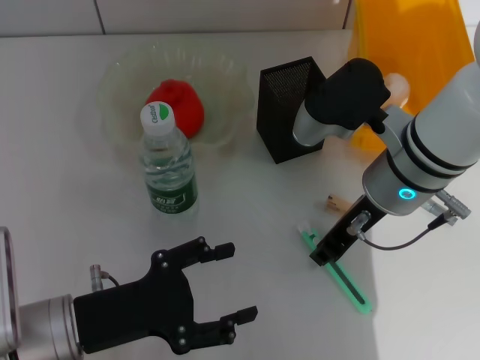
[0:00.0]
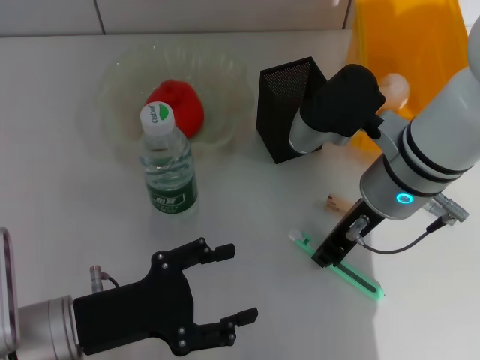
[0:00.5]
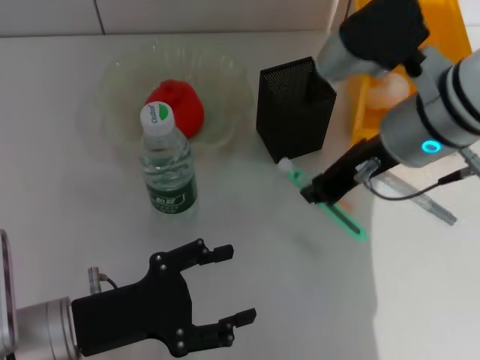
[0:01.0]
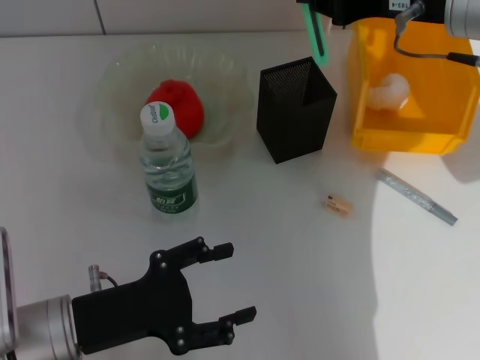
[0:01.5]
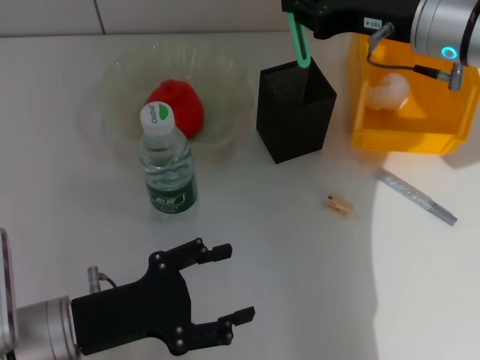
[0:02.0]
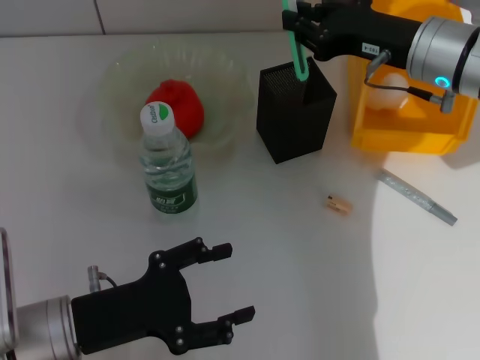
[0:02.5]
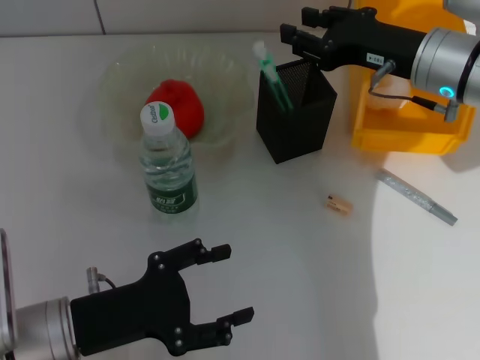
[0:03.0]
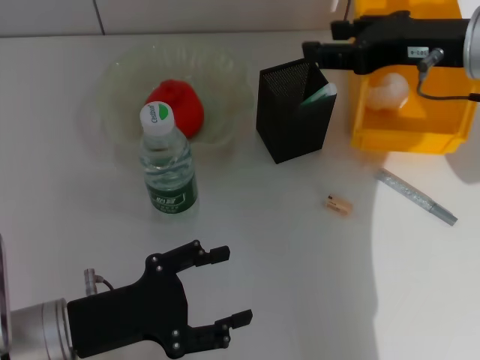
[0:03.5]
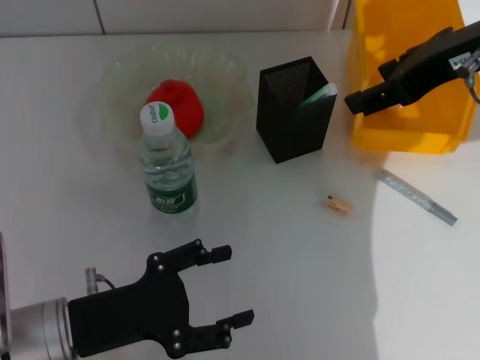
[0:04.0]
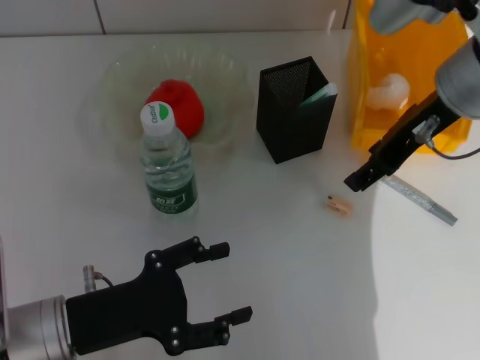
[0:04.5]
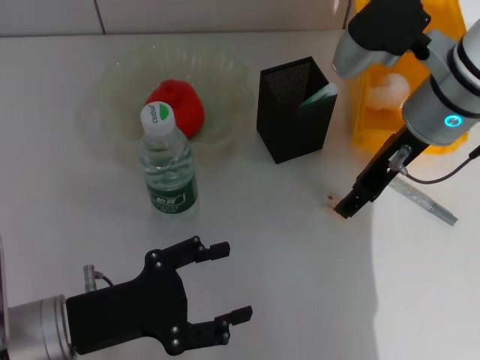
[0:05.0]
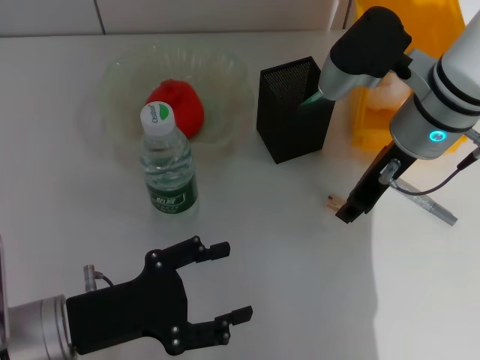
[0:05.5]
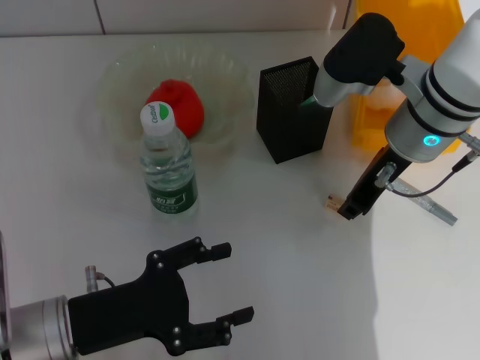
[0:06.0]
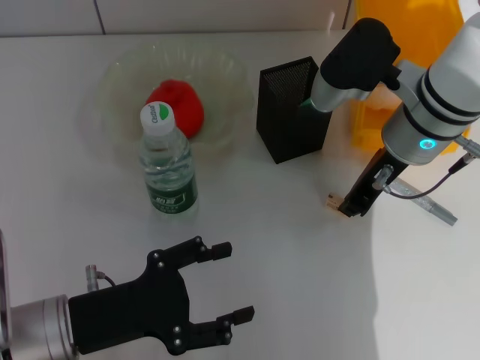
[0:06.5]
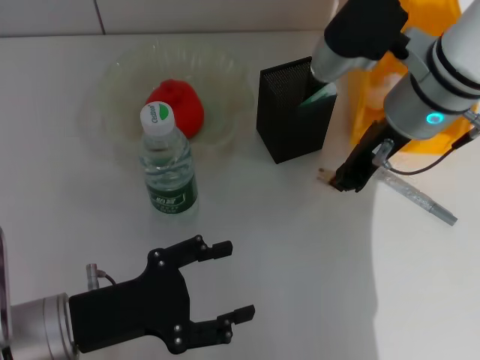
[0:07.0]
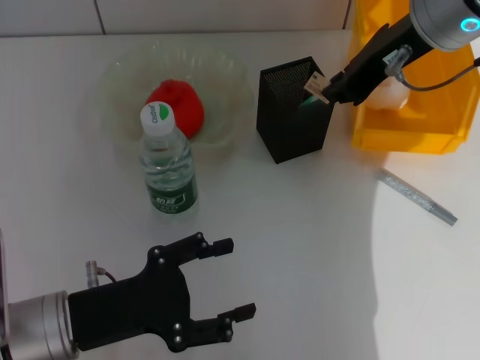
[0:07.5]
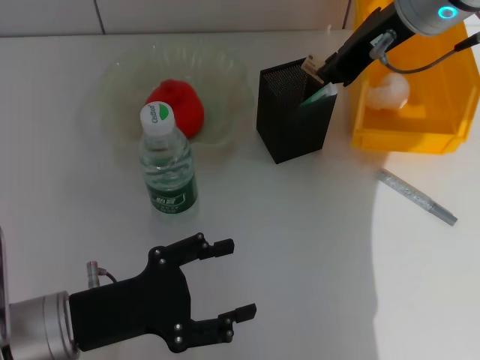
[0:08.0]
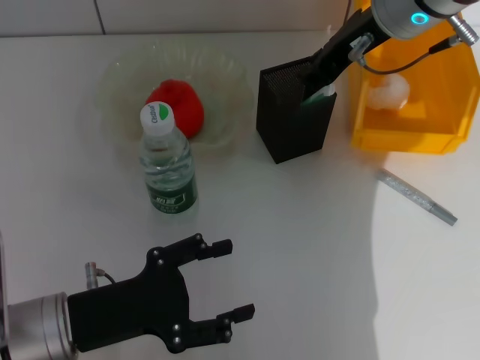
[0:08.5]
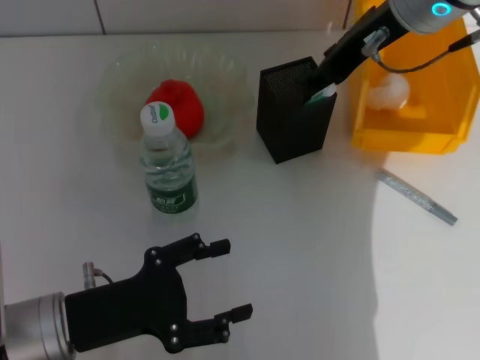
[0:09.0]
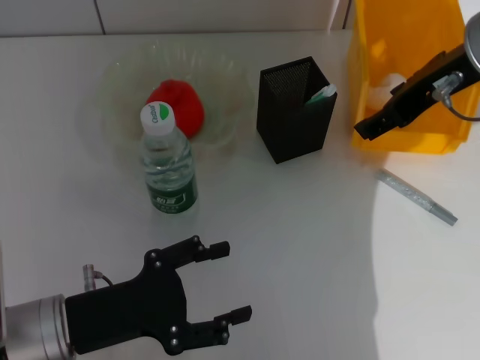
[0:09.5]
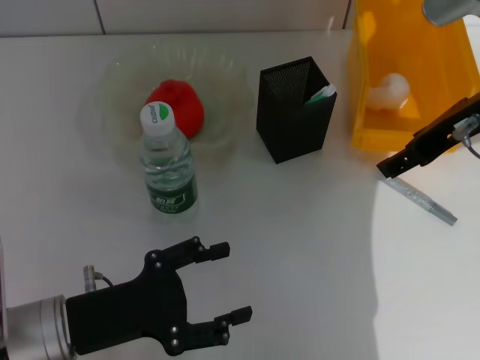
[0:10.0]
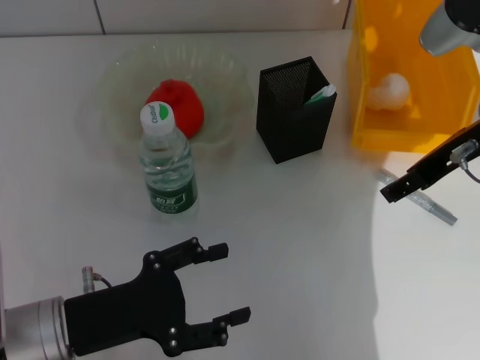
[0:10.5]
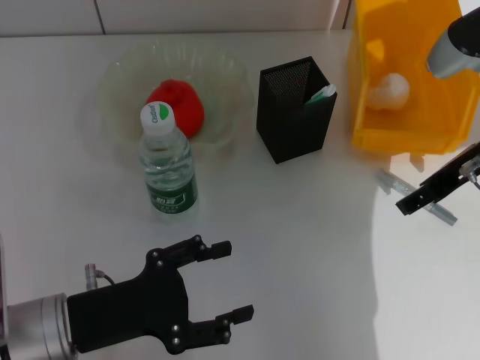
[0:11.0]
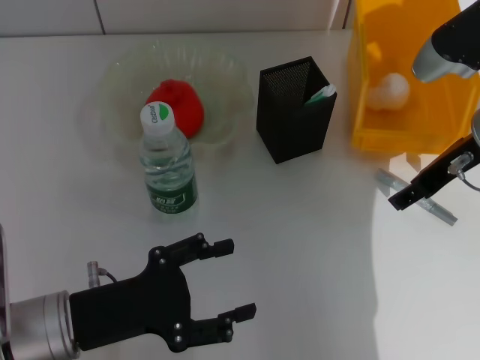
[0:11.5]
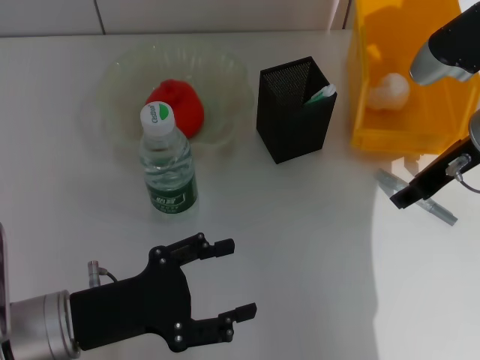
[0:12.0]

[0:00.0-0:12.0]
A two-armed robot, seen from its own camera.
Step, 0:00.5 to 0:03.0: Place the blue utility knife into the pen holder with the right hand.
Step, 0:03.5 to 0:06.0: Grab the eraser with the right hand.
Step, 0:06.5 to 0:08.5: Put the eraser into the pen holder with the right hand.
0:00.0 to 0:02.0: The right gripper moves forward, to the right and upward, roughly 10 cm.
0:02.0 to 0:04.0: The right gripper is displaced upward and backward by roughly 10 cm, and opens its fingers.
0:04.0 to 0:06.0: The right gripper goes approximately 15 cm downward and to the left, and closes up.
0:06.0 to 0:08.0: The right gripper is displaced upward by roughly 10 cm.
0:08.0 to 0:10.0: The right gripper moves to the right and backward, about 10 cm, and opens up.
0:10.0 to 0:12.0: The right gripper heads downward, covering approximately 5 cm.

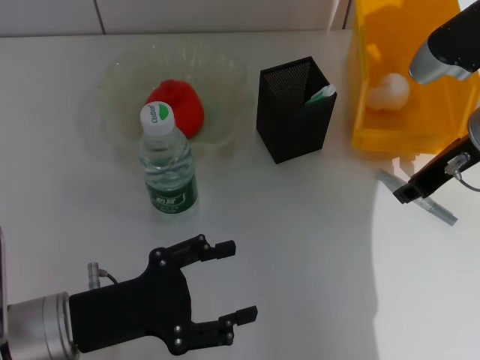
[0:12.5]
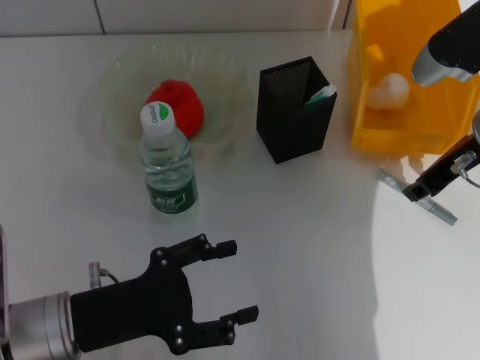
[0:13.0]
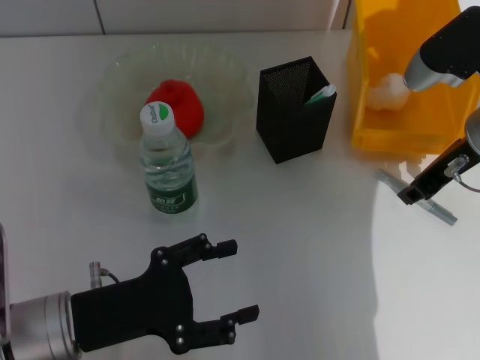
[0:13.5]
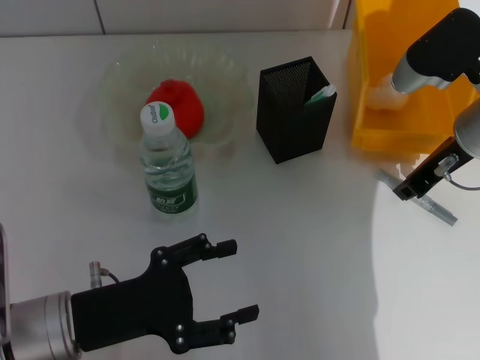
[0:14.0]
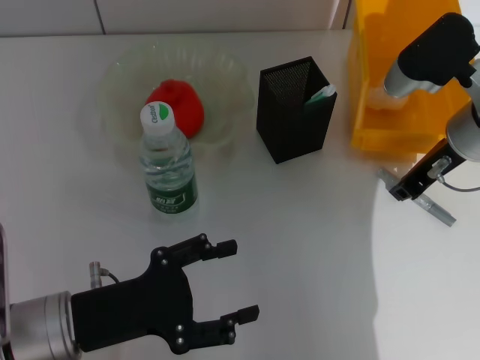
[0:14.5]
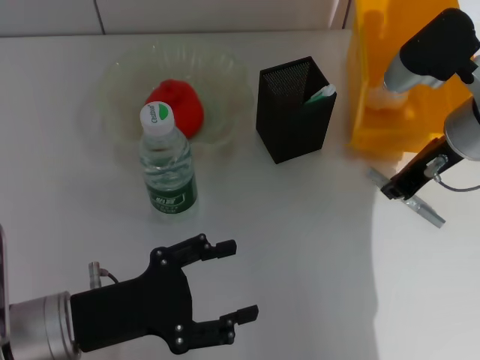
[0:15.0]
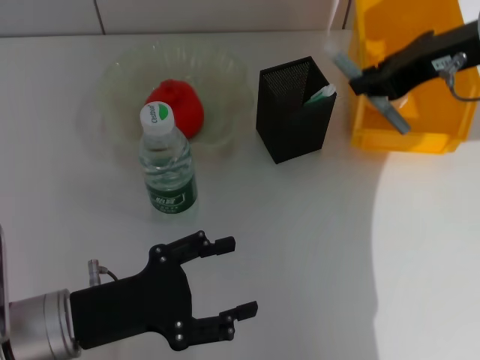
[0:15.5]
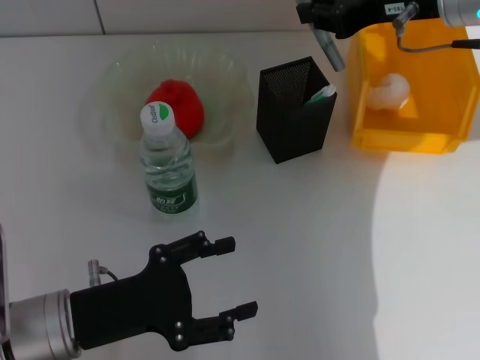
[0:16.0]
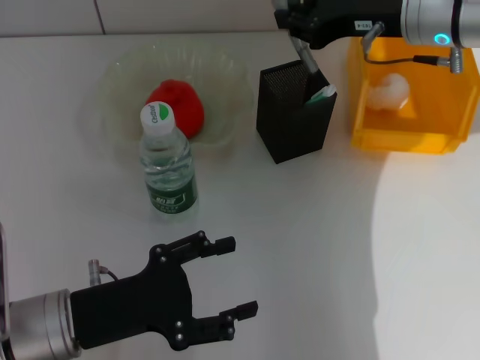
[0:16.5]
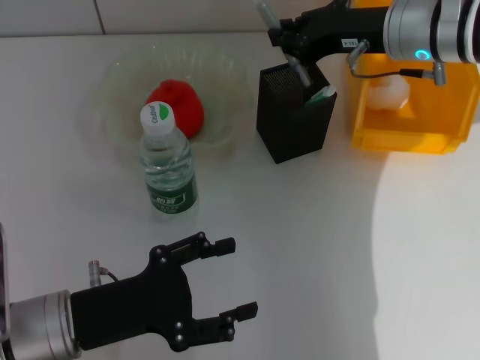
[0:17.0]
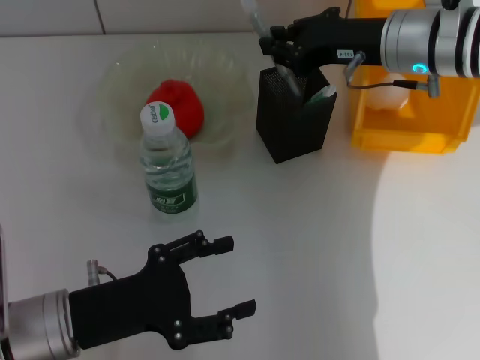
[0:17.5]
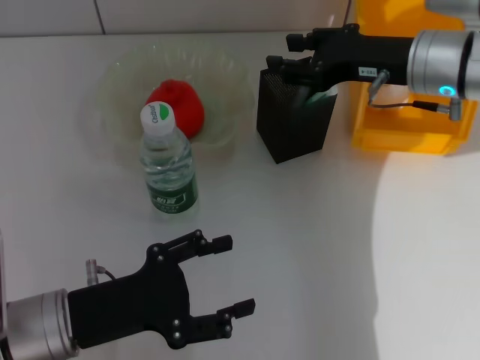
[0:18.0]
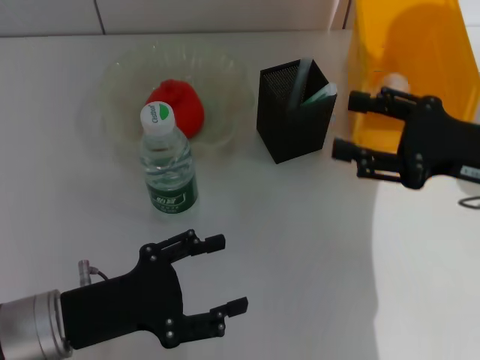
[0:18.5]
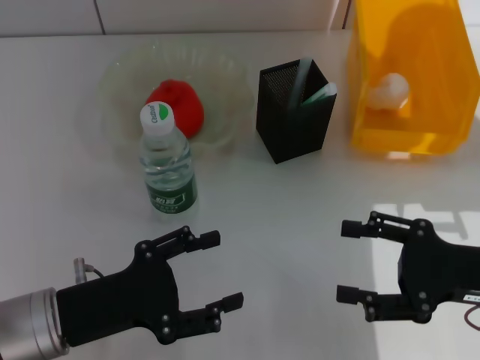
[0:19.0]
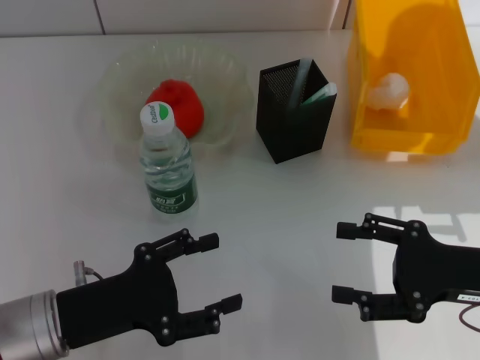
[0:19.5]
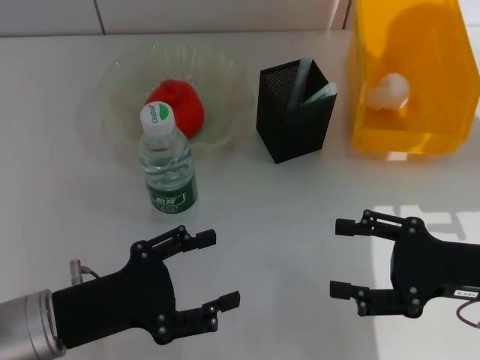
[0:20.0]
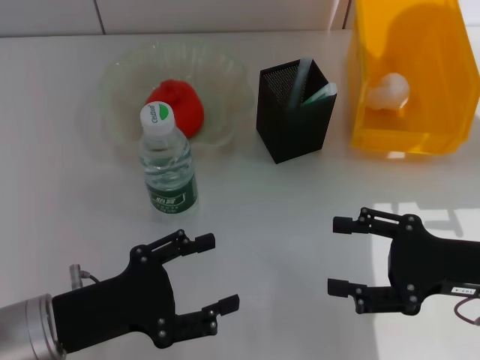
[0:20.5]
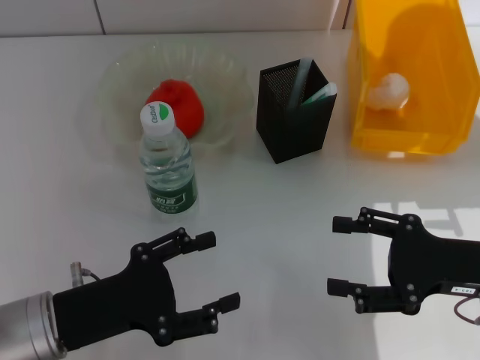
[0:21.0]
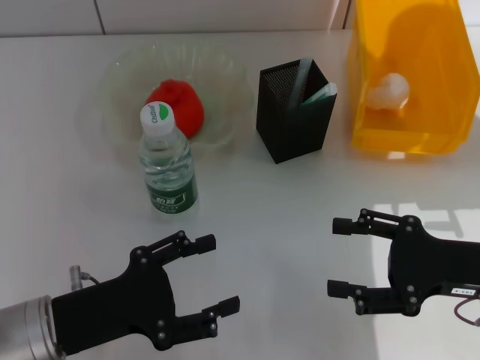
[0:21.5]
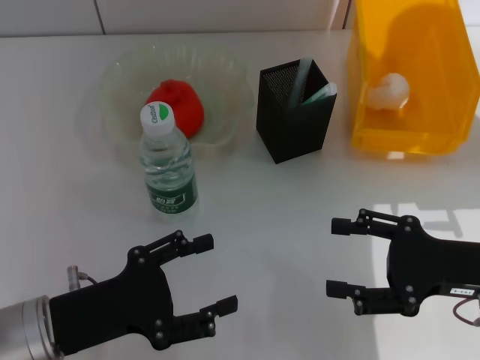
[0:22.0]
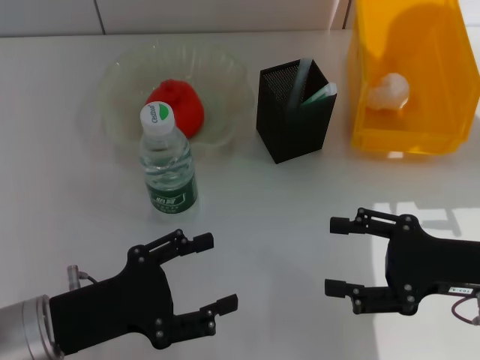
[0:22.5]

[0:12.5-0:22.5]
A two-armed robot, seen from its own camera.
Step, 0:13.0 to 0:18.0: Place the gray glue into the pen holder with the right hand.
0:12.5 to 0:14.5: There are only small adjustments of the grippers.
0:14.5 to 0:16.5: The right gripper goes about 5 cm upward.
0:16.5 to 0:18.5: The right gripper shifts some 15 cm backward, to the right and downward, and opens up.
0:18.5 to 0:20.5: The right gripper travels downward and backward by some 10 cm.
0:20.5 to 0:22.5: Neither gripper changes place.
